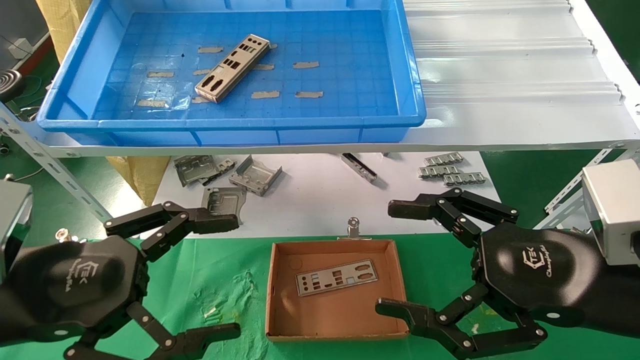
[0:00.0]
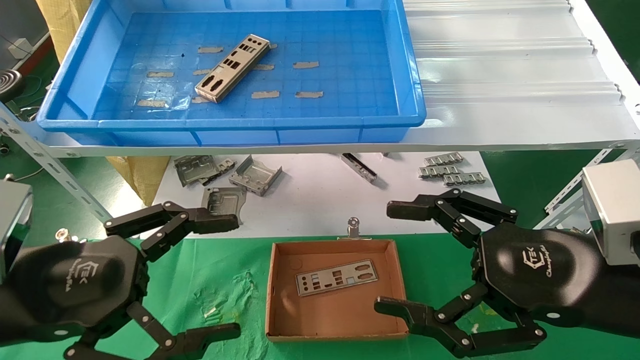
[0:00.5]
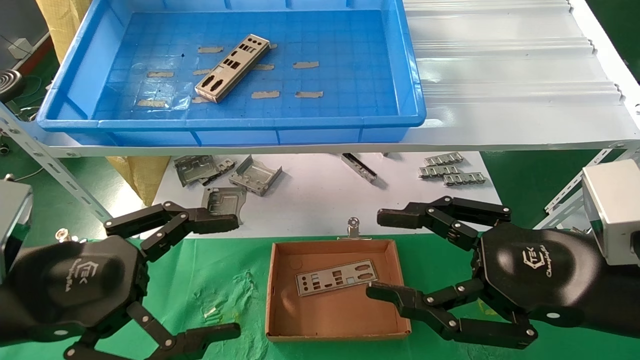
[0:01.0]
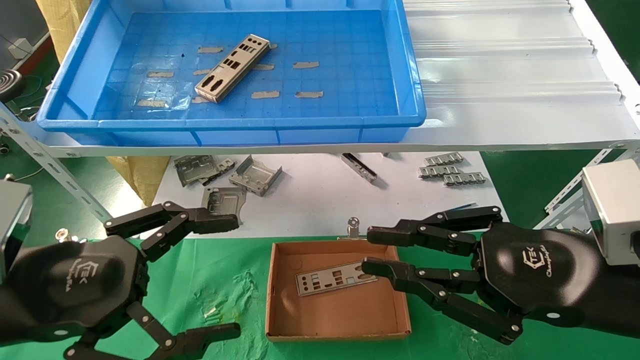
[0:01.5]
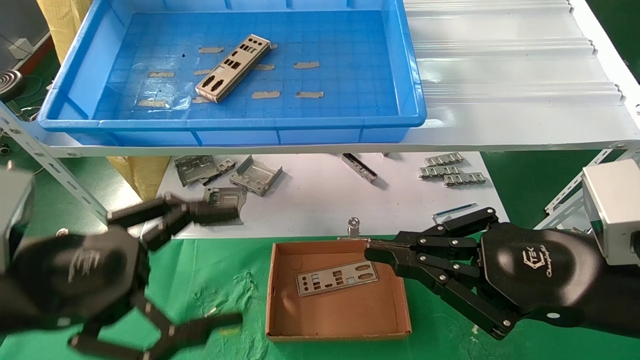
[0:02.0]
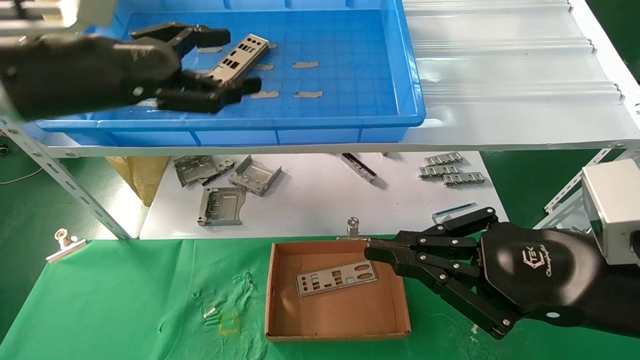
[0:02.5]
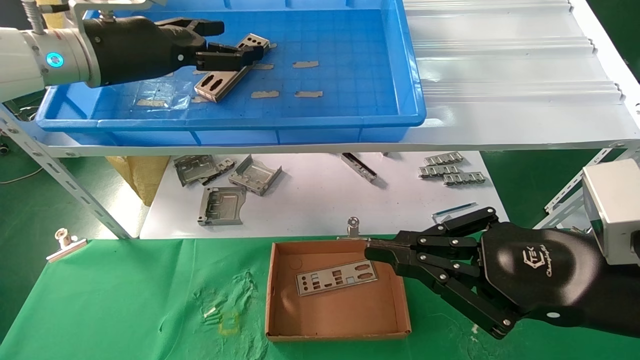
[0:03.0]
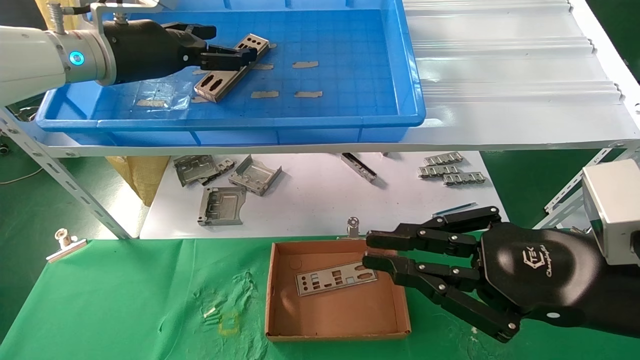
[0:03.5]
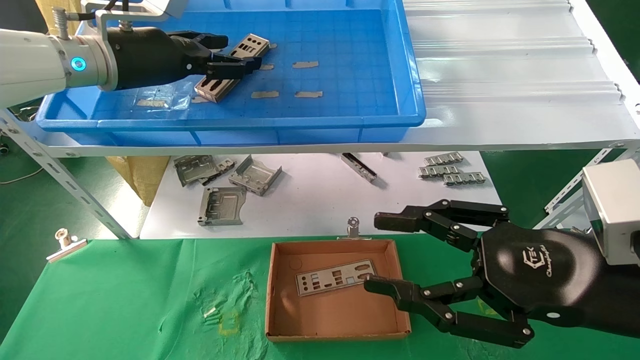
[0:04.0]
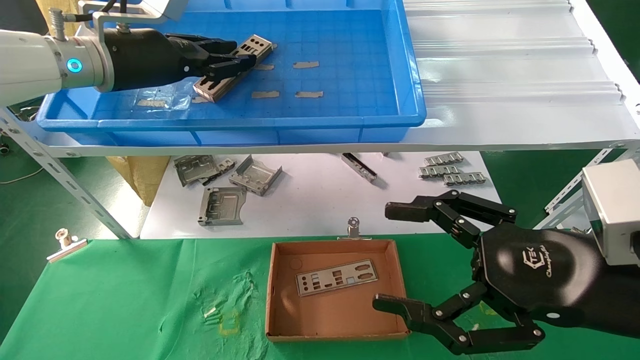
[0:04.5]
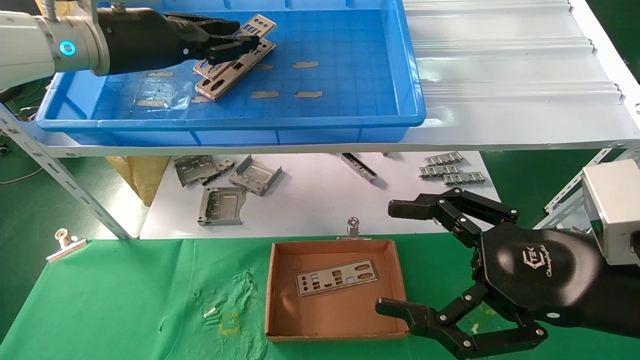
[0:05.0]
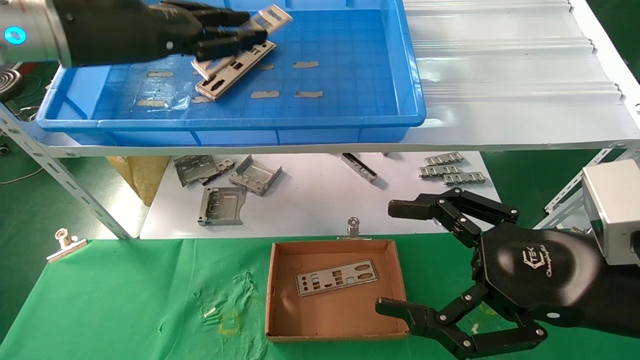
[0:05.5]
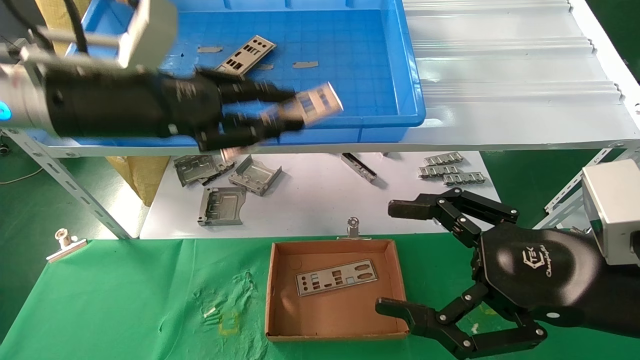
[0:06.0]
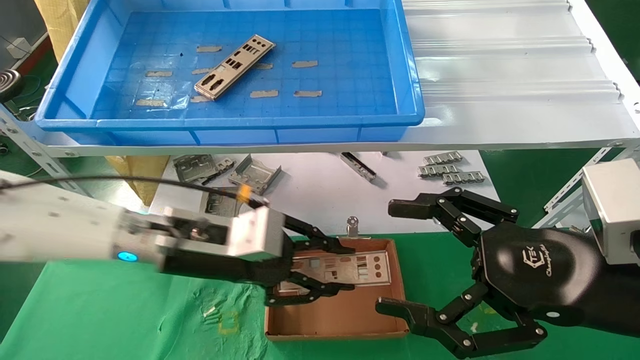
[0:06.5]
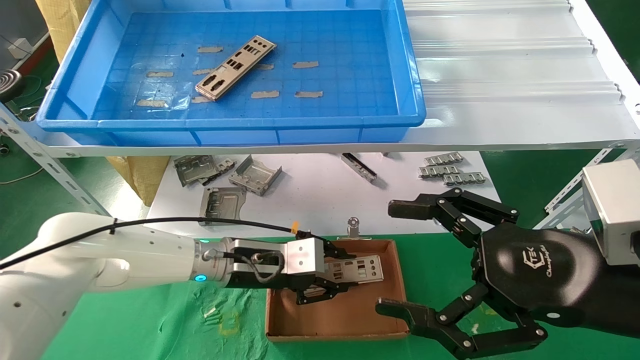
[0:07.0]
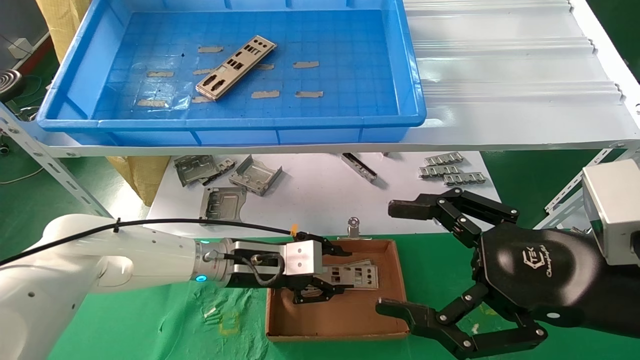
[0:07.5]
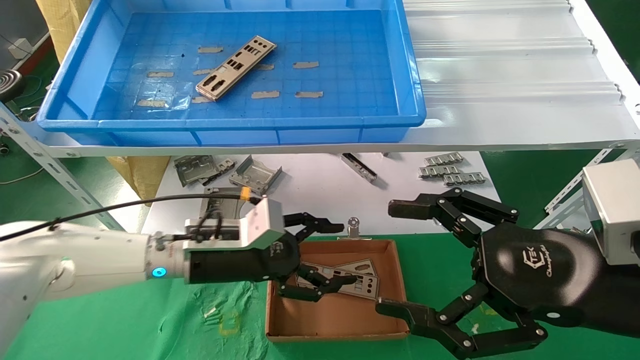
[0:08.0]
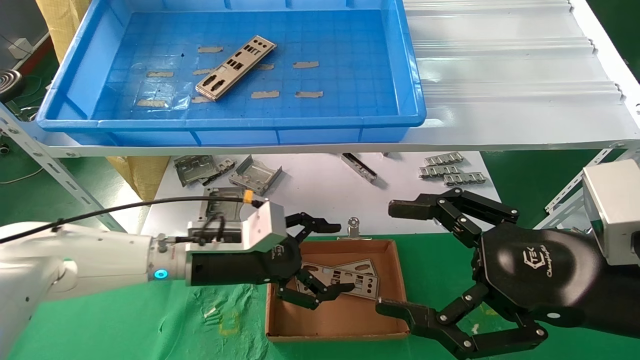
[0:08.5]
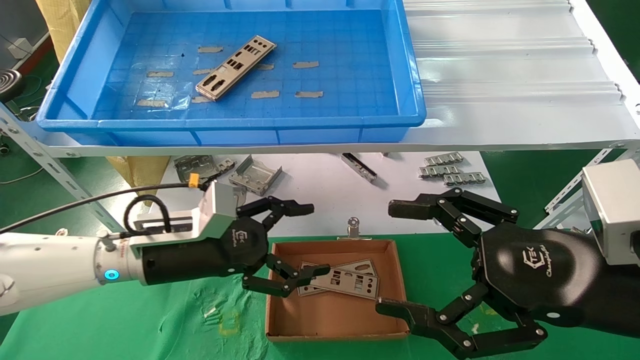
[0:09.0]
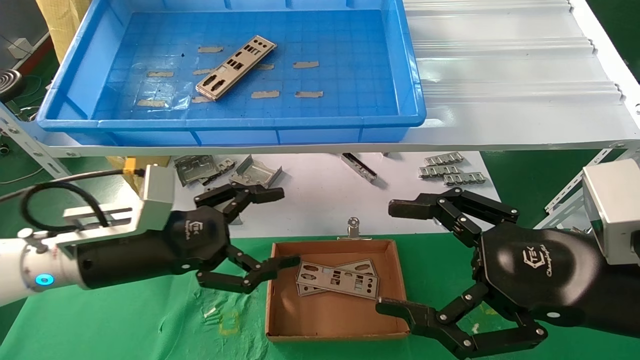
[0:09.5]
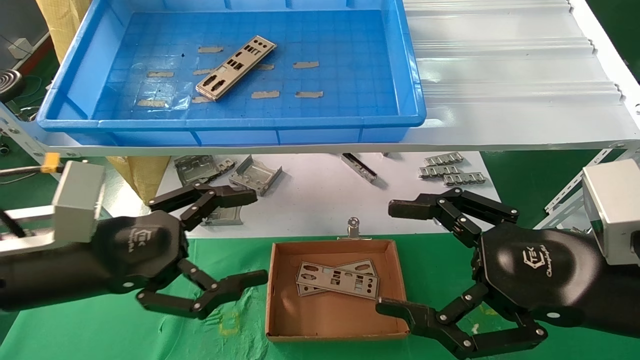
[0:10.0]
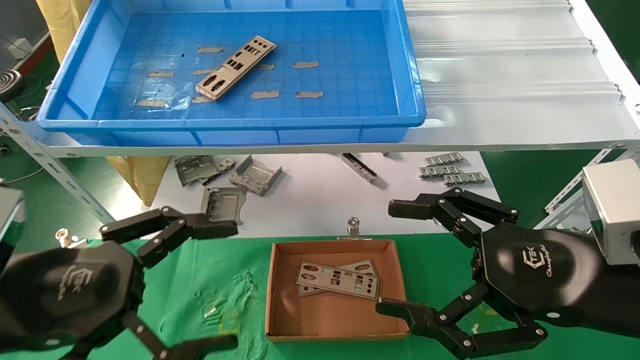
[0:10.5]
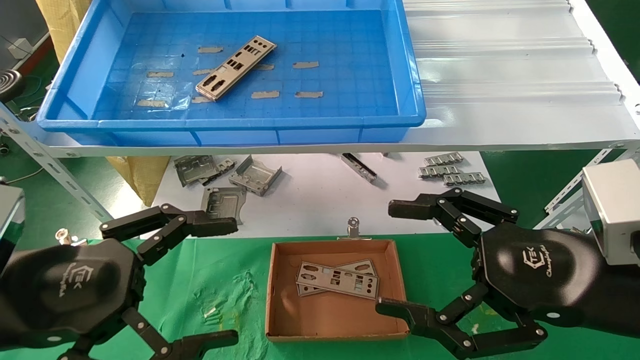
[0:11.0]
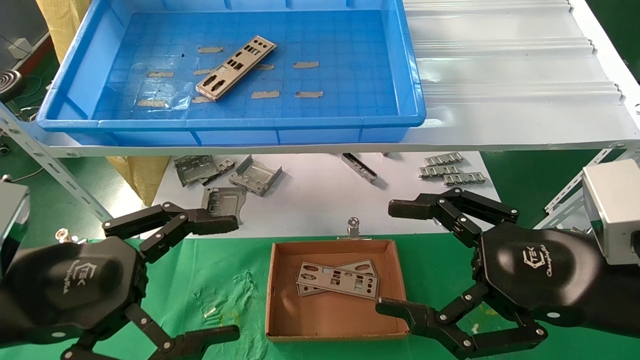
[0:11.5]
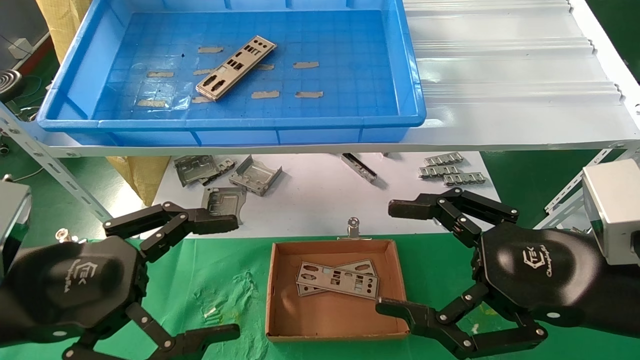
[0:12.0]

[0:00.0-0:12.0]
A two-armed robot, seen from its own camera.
Task of the whole recording: pick up the parts on the tray and put them in the cardboard box.
Step, 0:02.5 to 0:04.5: Pick up the IO bracket from the container box.
Step, 0:05.0 to 0:07.5: Place the IO bracket into the ingredient slot.
0:00.0 to 0:02.0: The right gripper closes up.
0:02.0 to 0:04.0: The right gripper opens up. Meanwhile the left gripper heads forward and upward, covering some 25 cm.
0:04.0 to 0:06.0: The right gripper opens up. Meanwhile the left gripper moves backward and downward, roughly 10 cm, and closes up.
0:06.0 to 0:08.0: The left gripper goes approximately 20 cm downward and to the right, and opens up.
0:08.0 to 0:10.0: The left gripper heads backward, to the left and upward, covering some 20 cm, and opens its fingers.
0:10.0 to 0:12.0: The left gripper travels backward by about 5 cm.

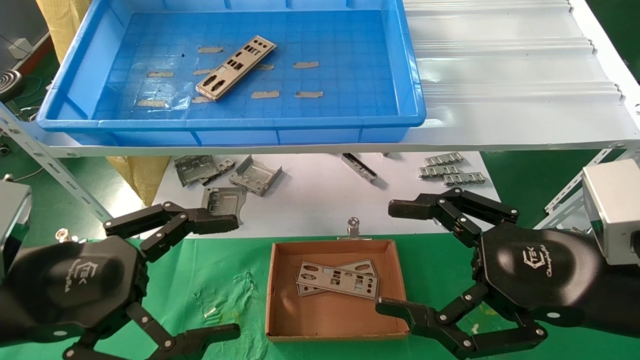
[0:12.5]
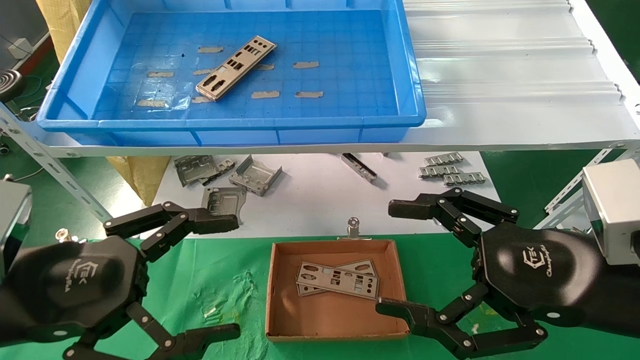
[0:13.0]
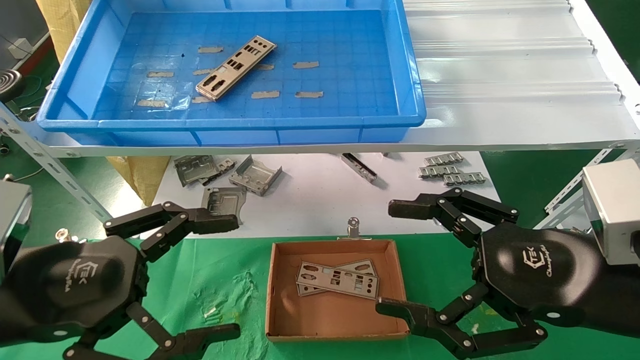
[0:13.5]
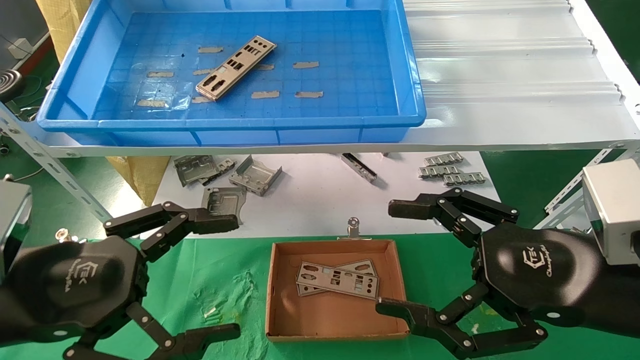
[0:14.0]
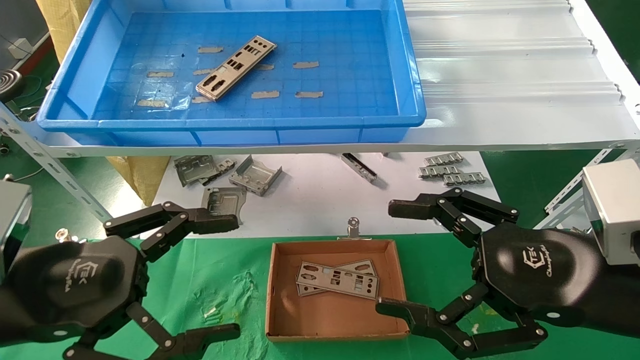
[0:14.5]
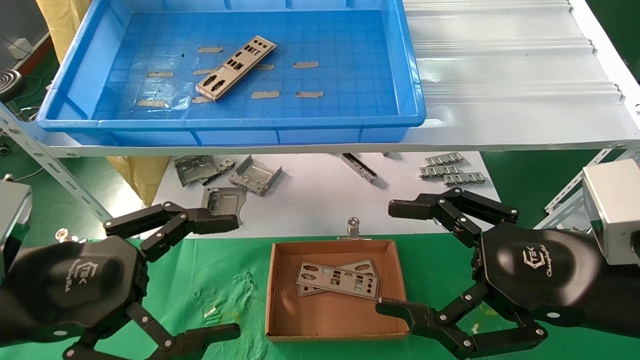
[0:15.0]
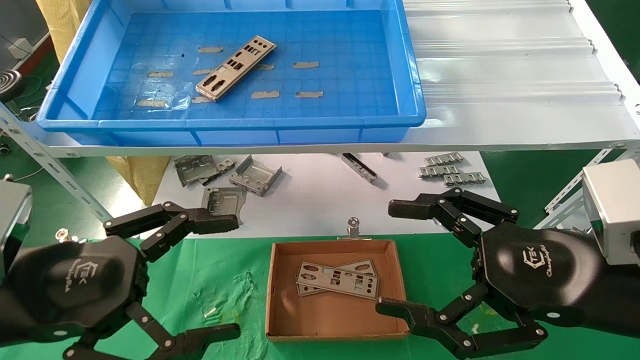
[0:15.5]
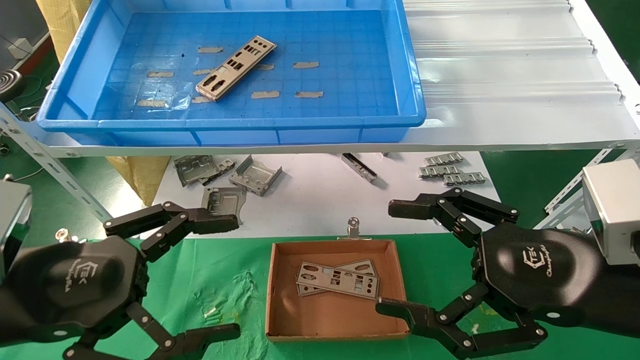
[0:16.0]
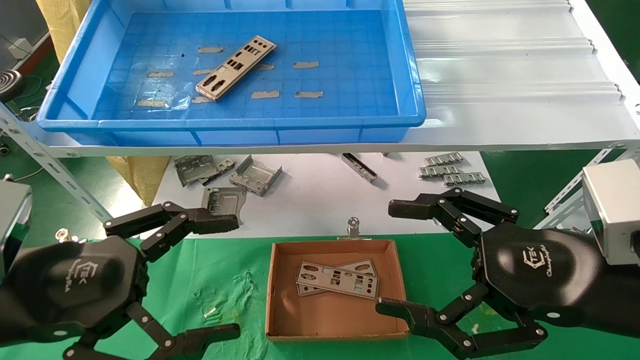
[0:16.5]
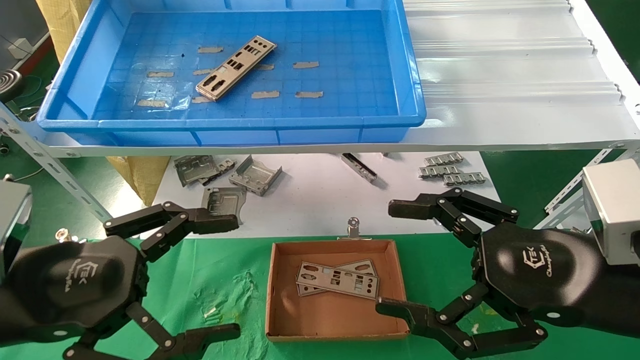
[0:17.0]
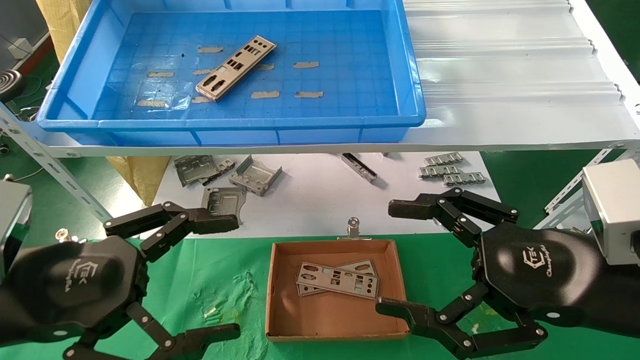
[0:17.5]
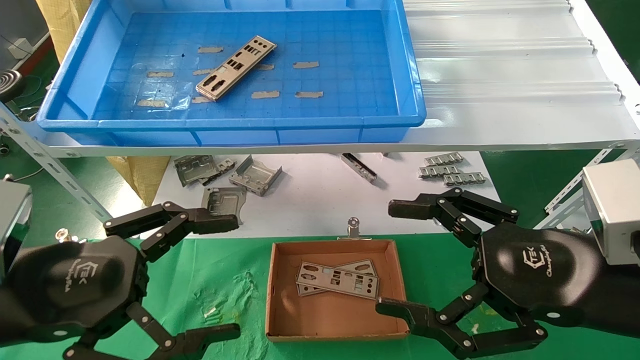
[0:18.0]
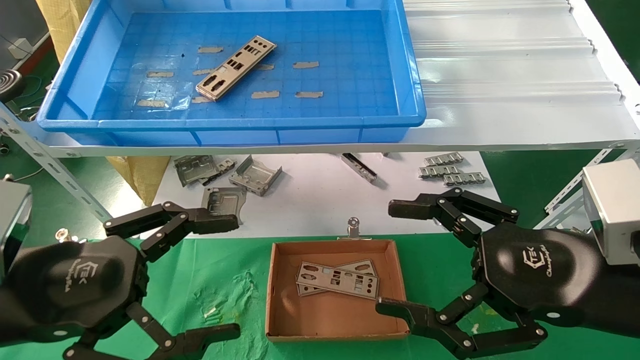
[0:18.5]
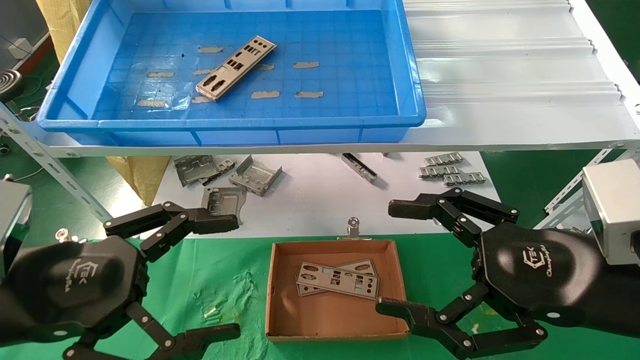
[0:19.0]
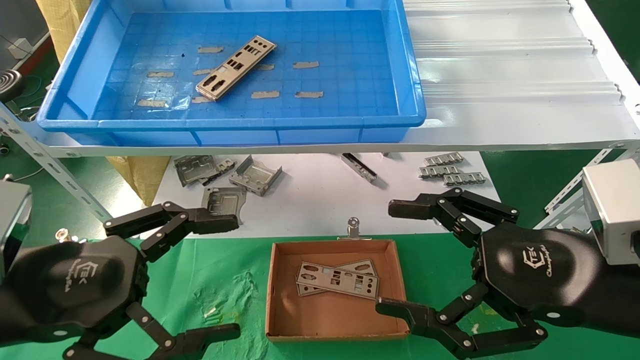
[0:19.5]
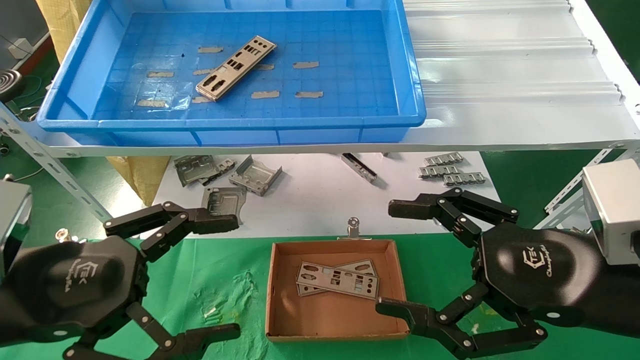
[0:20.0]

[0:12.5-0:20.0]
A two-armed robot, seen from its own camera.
Task of the whole recording: pick up the parts on the tray and put them in the cardboard box.
0:12.5 to 0:20.0: Neither gripper changes place.
